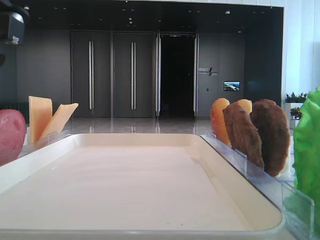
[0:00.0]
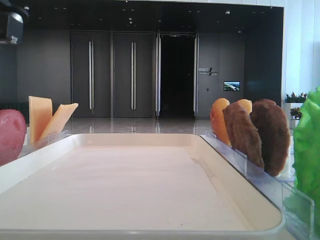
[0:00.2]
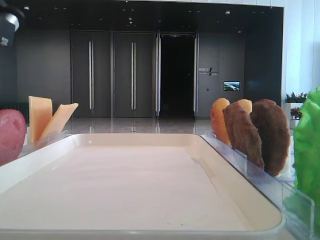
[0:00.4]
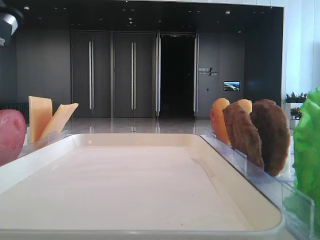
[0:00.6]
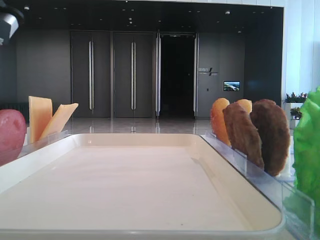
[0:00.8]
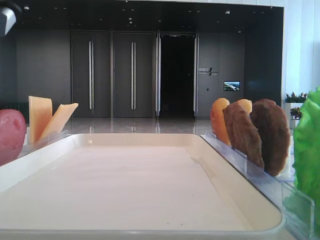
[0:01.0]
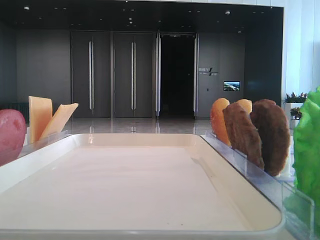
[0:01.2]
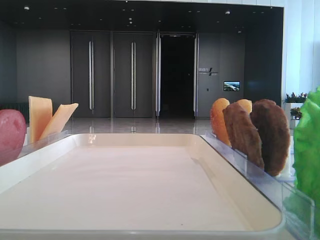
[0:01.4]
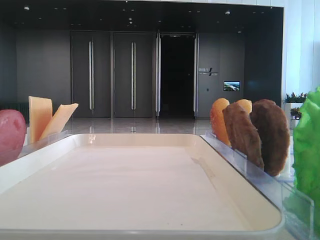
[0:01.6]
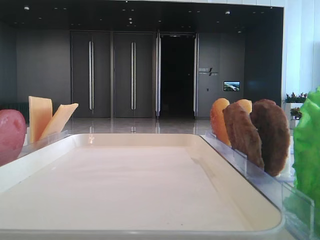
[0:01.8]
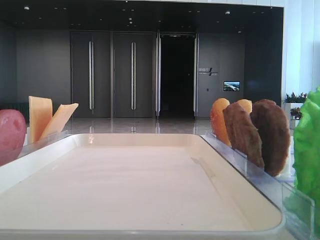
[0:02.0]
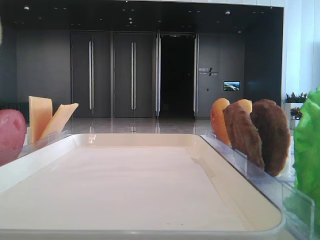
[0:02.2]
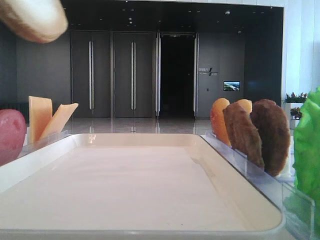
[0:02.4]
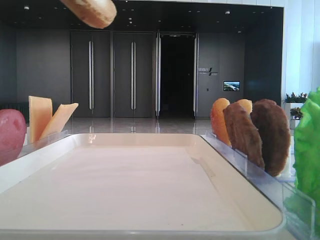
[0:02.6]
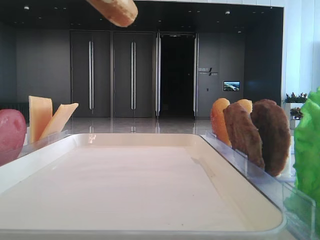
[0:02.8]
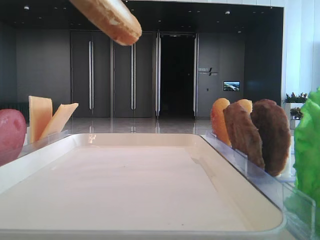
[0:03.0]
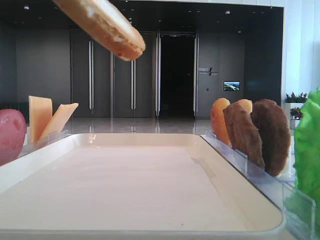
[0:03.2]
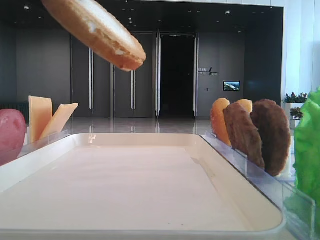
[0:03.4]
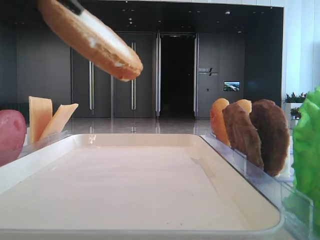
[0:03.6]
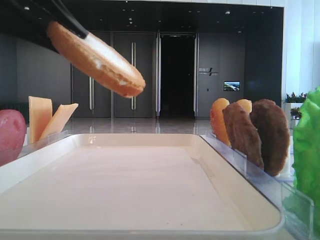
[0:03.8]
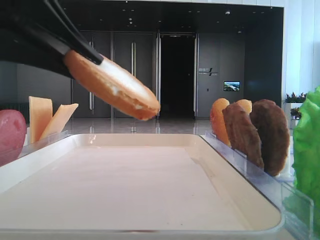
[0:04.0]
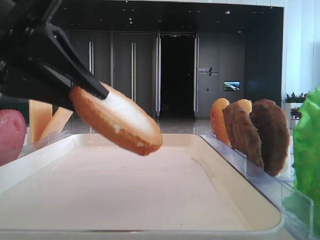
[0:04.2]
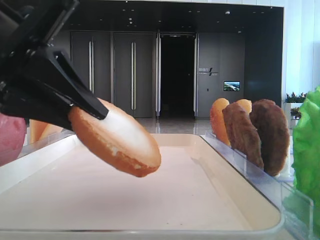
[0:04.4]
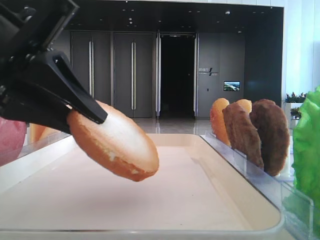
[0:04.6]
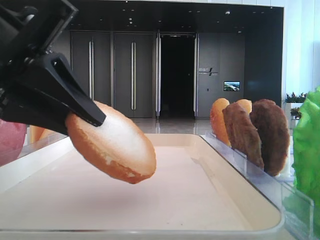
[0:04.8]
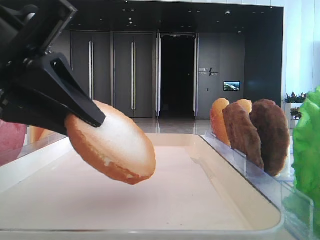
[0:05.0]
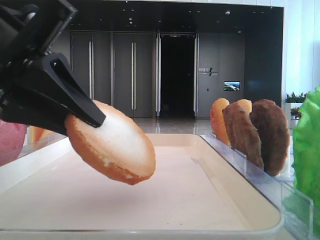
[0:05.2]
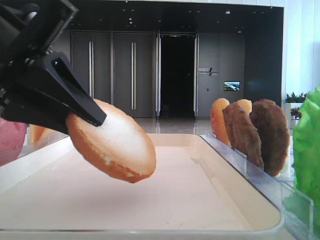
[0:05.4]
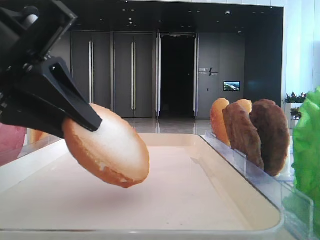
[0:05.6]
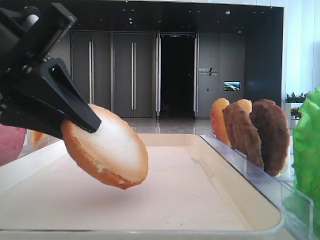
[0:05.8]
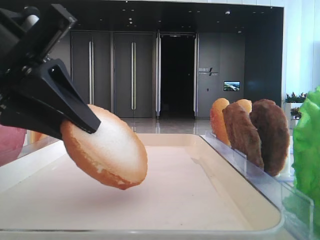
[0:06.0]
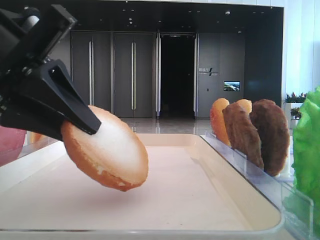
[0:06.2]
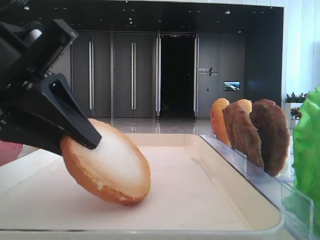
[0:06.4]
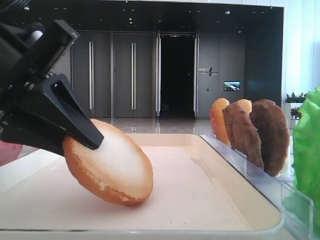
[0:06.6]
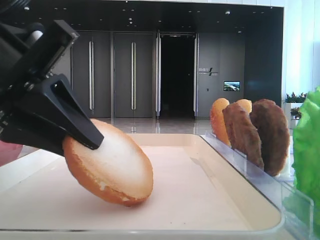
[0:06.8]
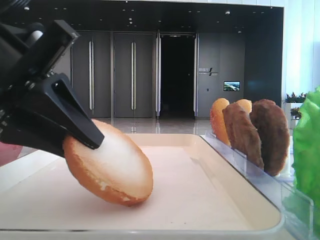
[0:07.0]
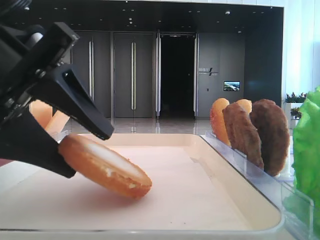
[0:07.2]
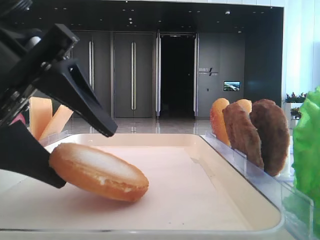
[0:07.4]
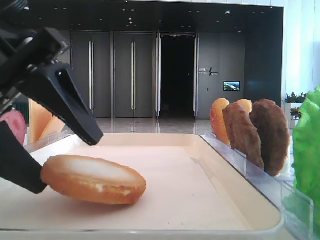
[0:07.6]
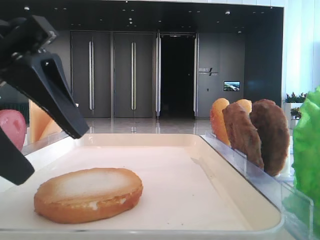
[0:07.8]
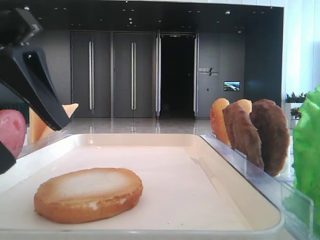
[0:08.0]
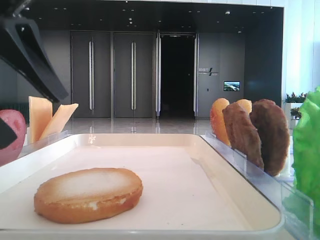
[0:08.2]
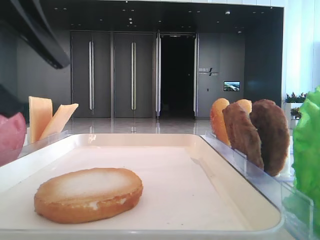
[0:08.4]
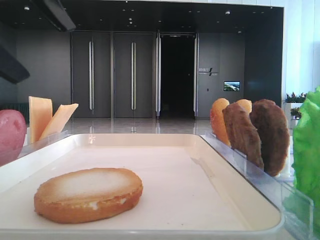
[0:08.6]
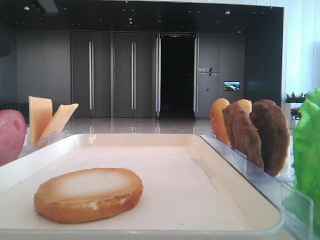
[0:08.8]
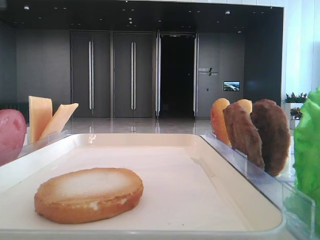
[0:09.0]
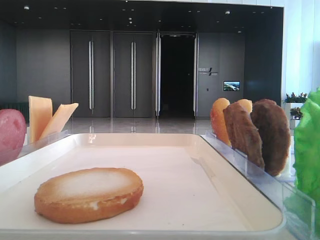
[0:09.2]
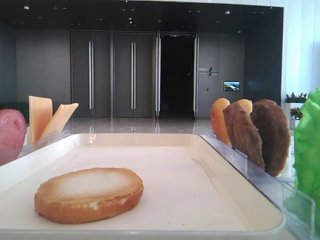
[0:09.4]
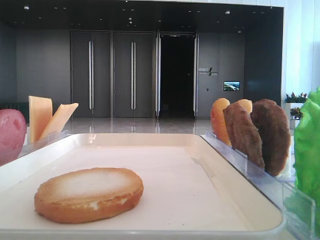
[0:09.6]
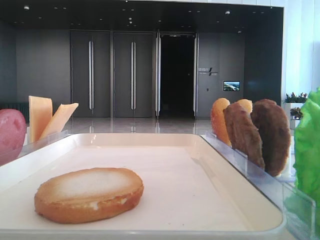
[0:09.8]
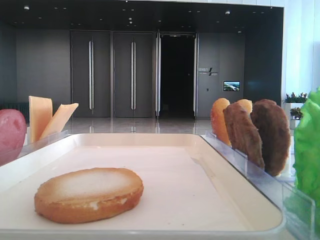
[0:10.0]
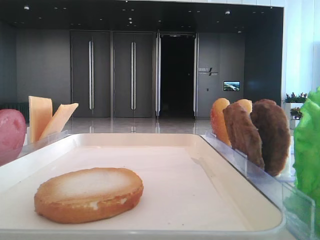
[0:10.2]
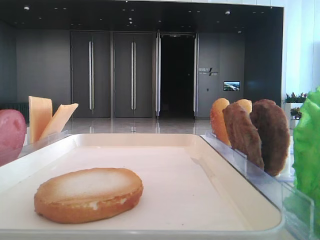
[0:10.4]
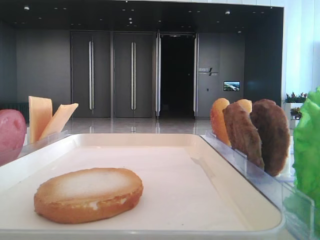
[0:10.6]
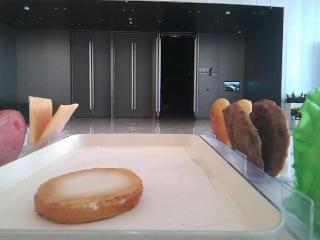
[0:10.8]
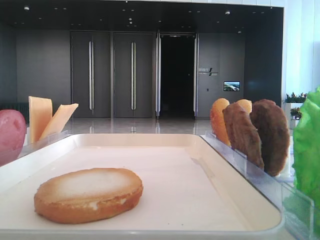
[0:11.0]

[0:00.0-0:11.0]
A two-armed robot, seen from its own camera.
Step, 0:01.0 to 0:07.6: Place the bread on the tray with the left hand.
0:01.6 to 0:03.2: The left gripper shifts roughly 5 cm downward.
0:03.2 to 0:04.8: The left gripper moves downward, roughly 10 cm.
0:04.8 to 0:06.2: Both grippers stay about where they are.
0:06.2 to 0:07.8: The left gripper opens.
0:07.8 to 0:09.4: The left gripper moves upward, some 15 cm.

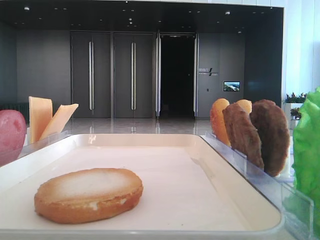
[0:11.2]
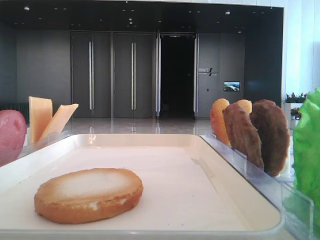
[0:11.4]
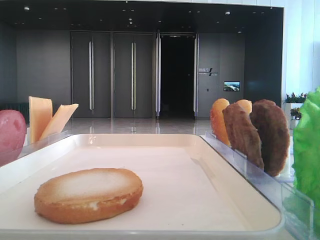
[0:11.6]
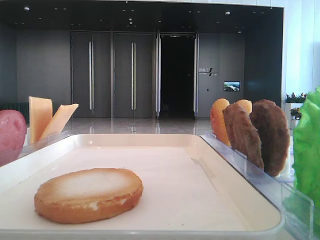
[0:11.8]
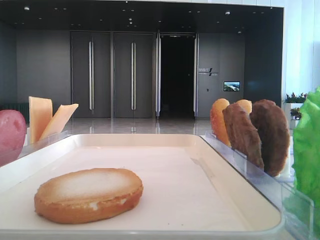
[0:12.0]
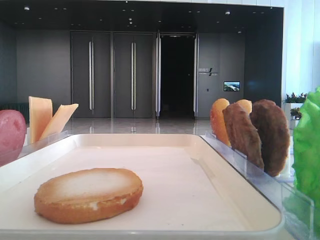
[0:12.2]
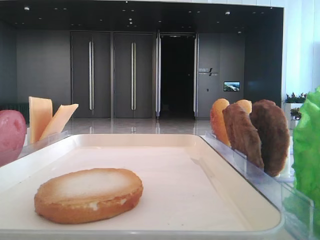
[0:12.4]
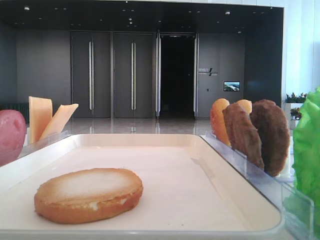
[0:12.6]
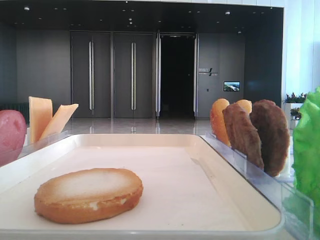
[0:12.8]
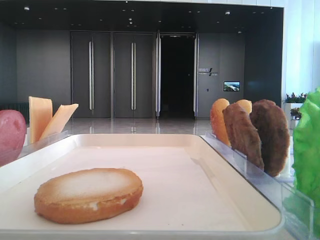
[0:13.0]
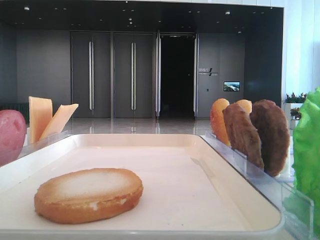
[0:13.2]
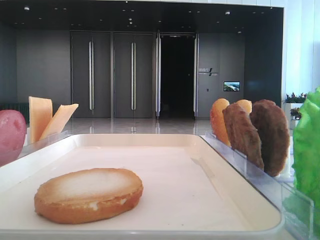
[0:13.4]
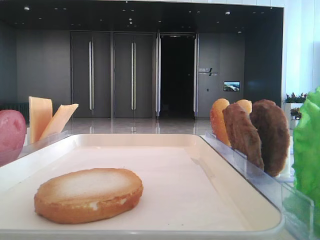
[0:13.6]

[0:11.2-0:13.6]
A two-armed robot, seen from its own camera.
0:12.4 to 0:13.6: Both grippers stay about where they are.

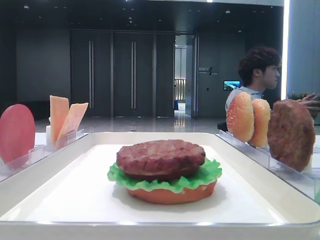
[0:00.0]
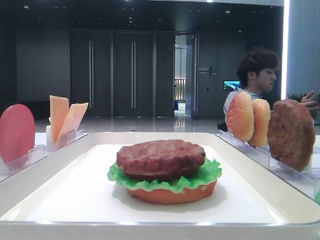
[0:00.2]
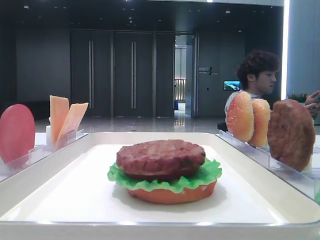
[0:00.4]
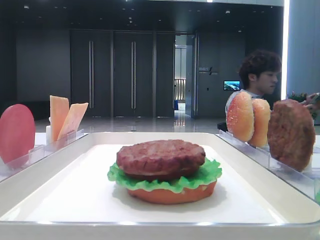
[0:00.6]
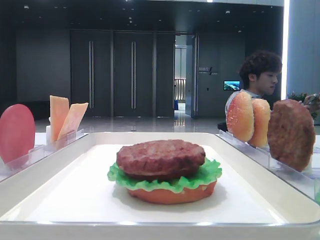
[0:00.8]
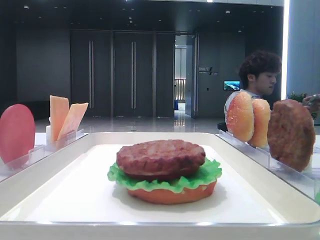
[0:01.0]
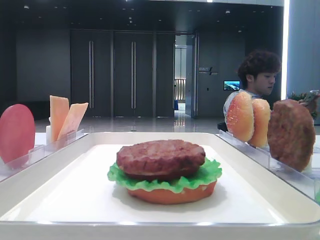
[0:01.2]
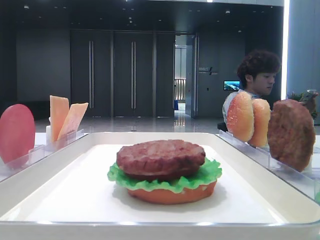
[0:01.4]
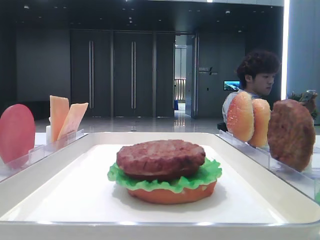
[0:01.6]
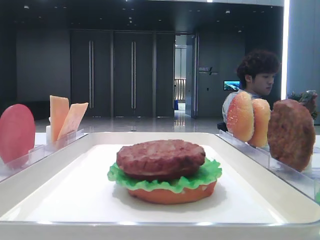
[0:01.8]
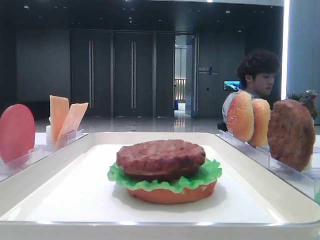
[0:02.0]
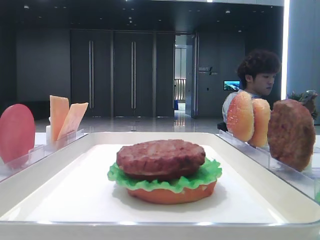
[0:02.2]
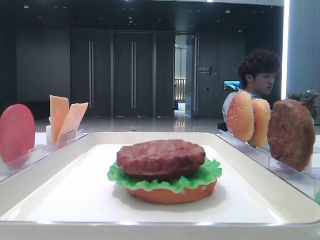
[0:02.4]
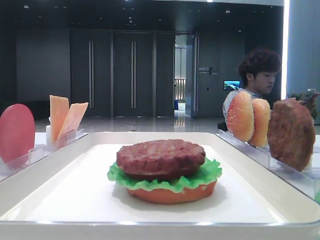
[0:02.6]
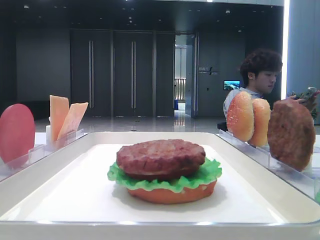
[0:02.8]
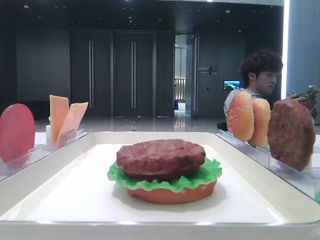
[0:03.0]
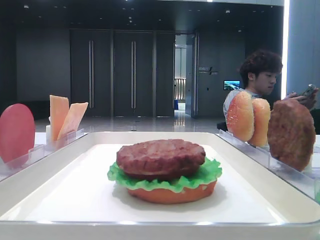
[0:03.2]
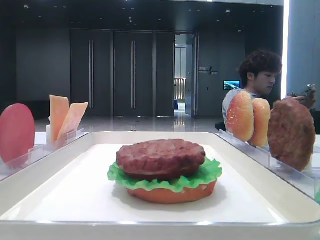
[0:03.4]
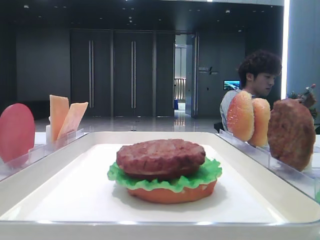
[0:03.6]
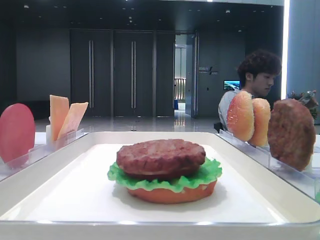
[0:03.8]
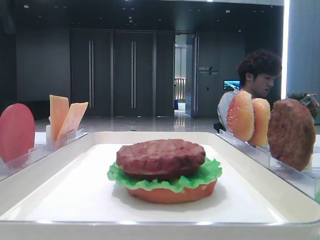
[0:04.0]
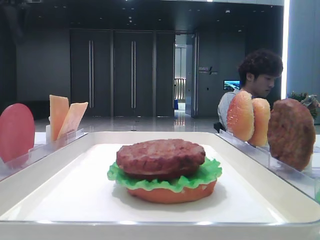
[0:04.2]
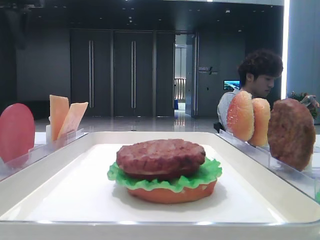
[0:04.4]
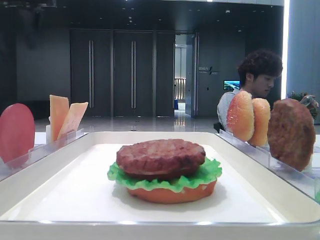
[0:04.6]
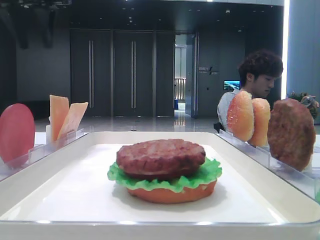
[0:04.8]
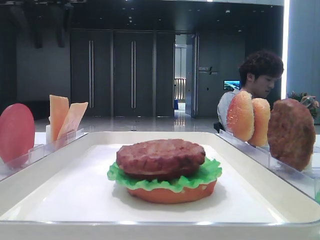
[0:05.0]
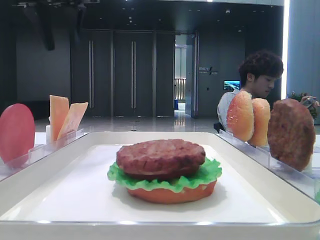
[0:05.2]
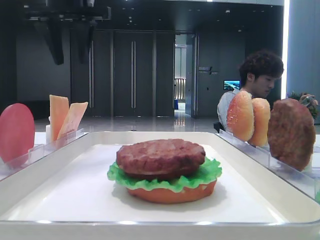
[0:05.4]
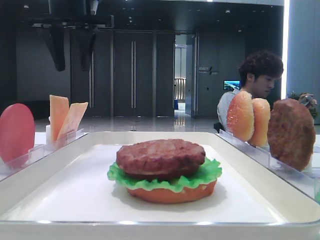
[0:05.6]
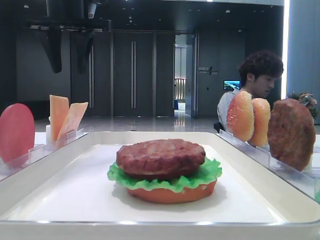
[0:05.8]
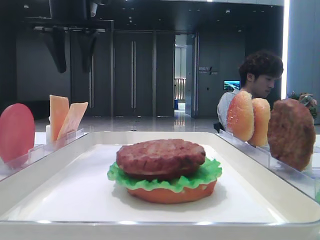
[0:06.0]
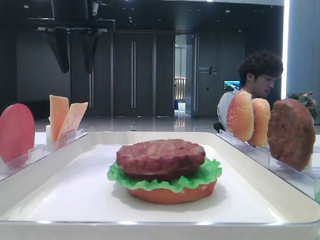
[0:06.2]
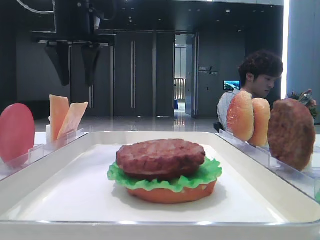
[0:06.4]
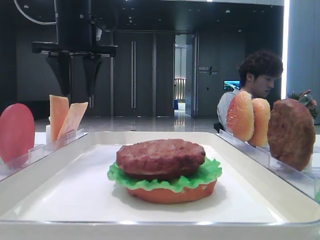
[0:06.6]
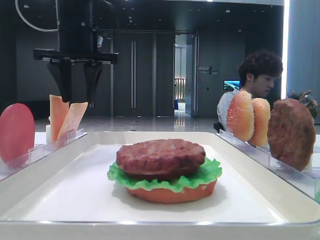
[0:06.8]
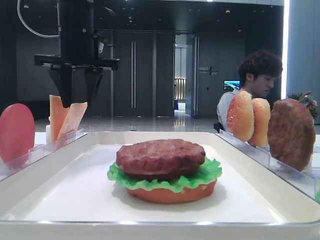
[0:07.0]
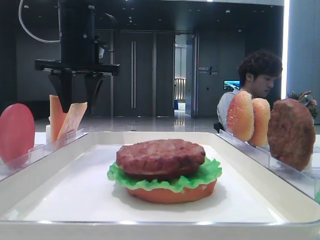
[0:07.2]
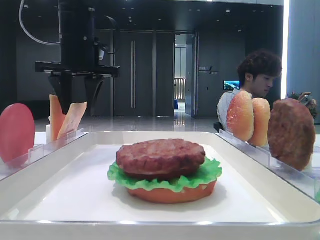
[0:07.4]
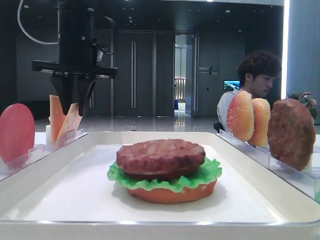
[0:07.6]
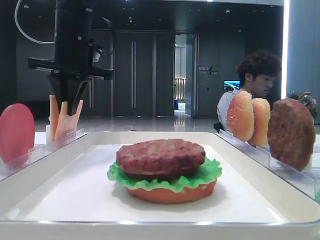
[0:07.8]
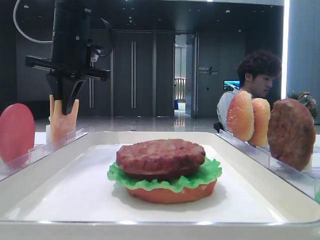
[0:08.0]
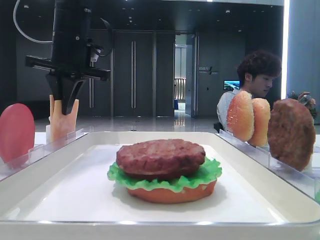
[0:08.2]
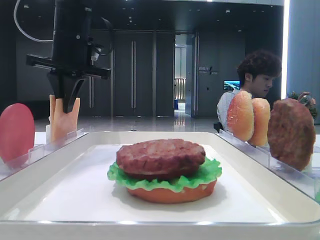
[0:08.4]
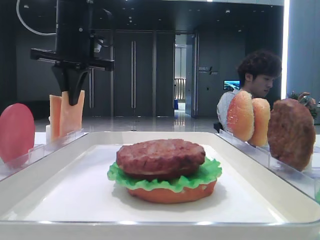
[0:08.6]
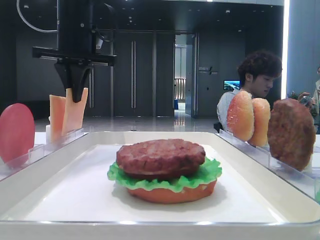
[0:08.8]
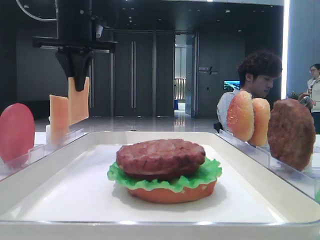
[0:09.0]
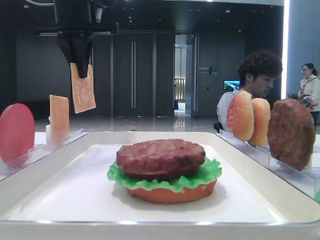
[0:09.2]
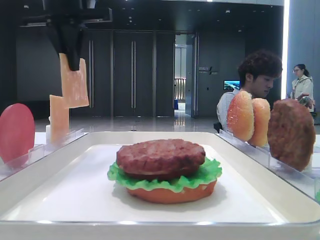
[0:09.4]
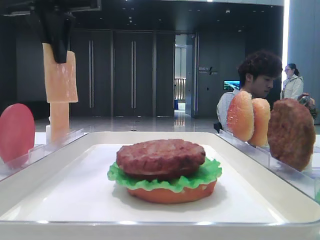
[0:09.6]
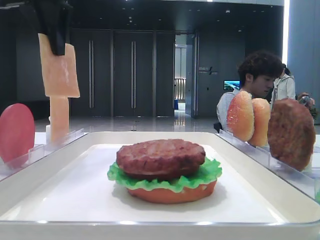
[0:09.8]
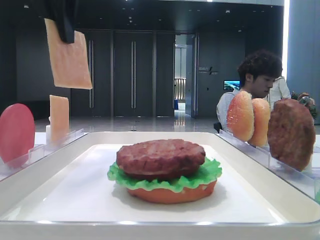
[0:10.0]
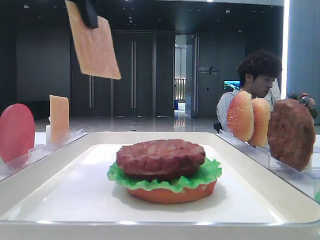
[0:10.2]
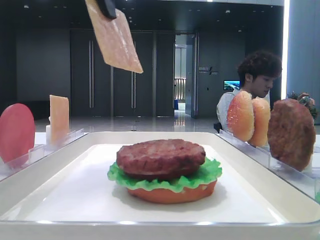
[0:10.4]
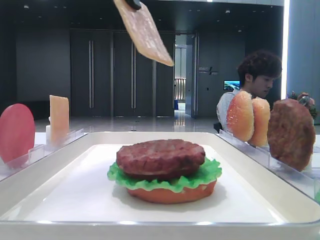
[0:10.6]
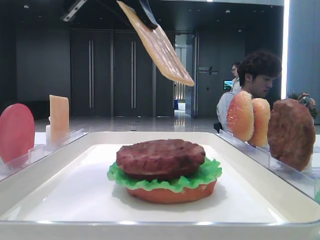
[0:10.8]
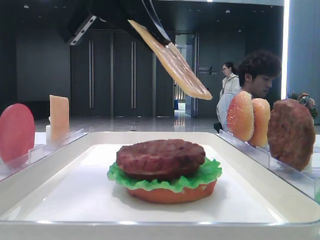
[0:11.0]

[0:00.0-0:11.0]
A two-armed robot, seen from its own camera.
Step, 0:00.0 to 0:08.0: Pick up the cheese slice with the left hand.
0:04.8 to 0:06.2: The left gripper is displaced to the right by some 10 cm.
0:06.2 to 0:07.8: The left gripper shifts some 5 cm downward, and closes up.
0:07.8 to 0:09.4: The left gripper goes some 5 cm upward.
0:09.4 to 0:11.0: The left gripper is displaced backward and to the right by about 15 cm.
